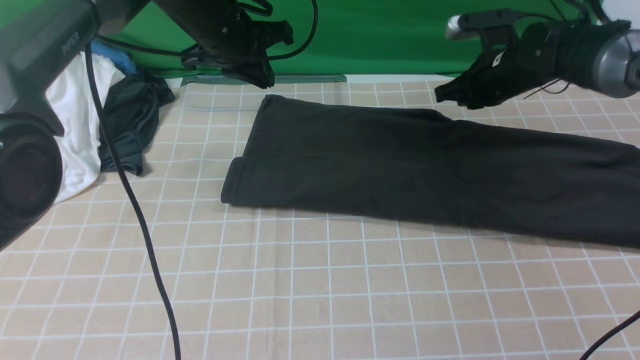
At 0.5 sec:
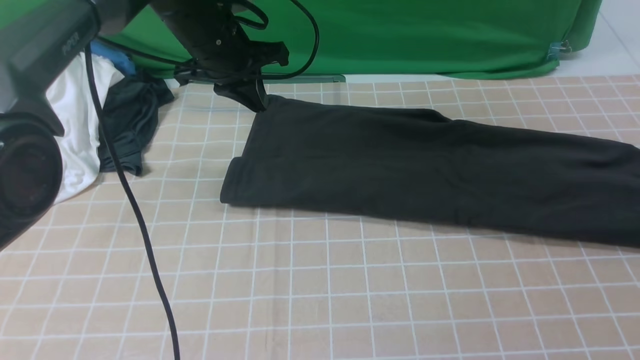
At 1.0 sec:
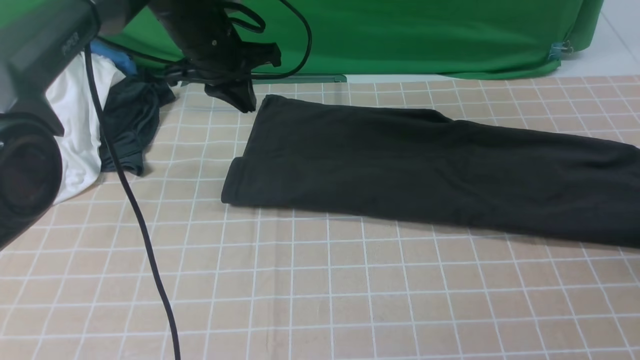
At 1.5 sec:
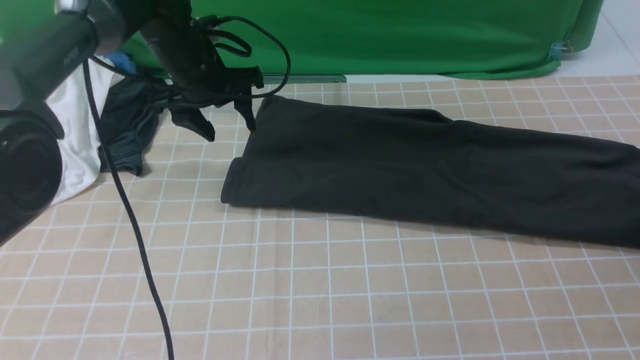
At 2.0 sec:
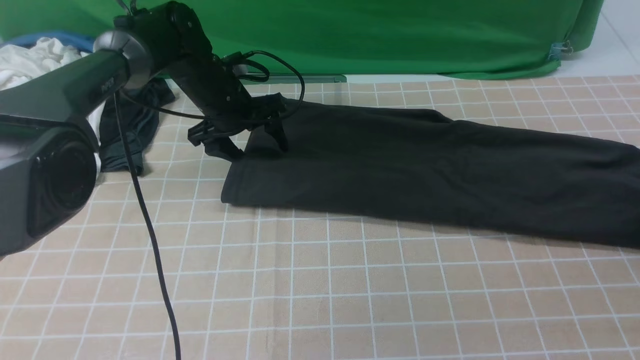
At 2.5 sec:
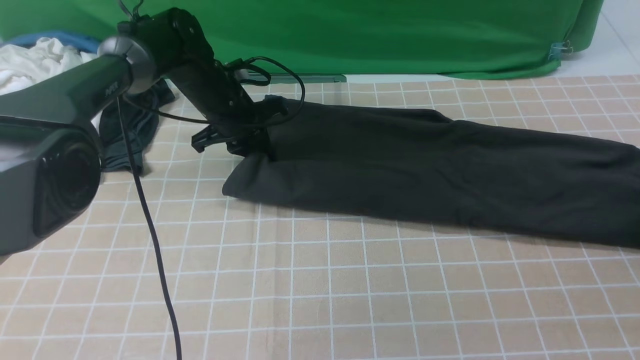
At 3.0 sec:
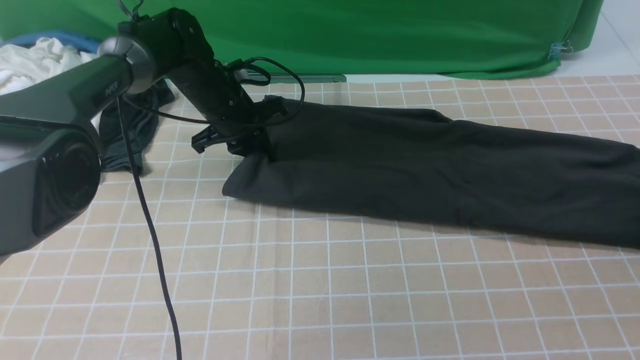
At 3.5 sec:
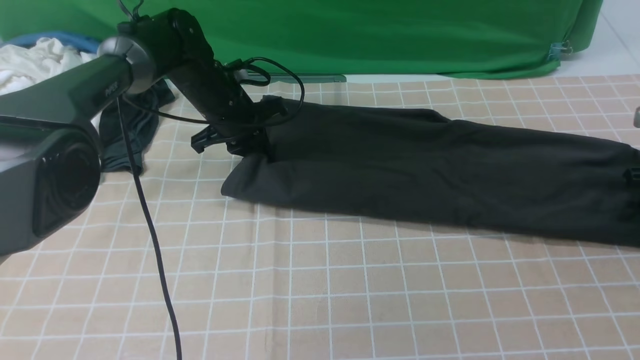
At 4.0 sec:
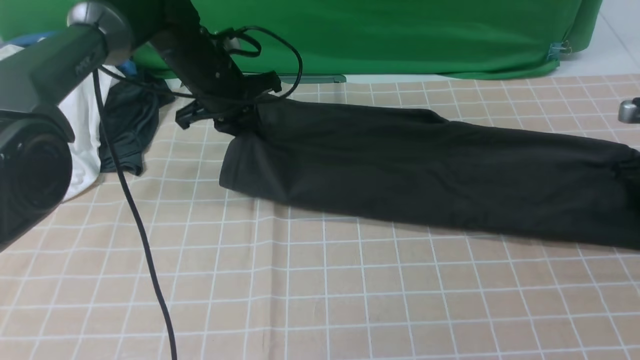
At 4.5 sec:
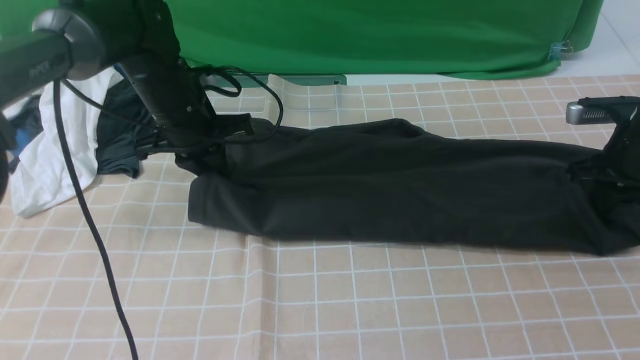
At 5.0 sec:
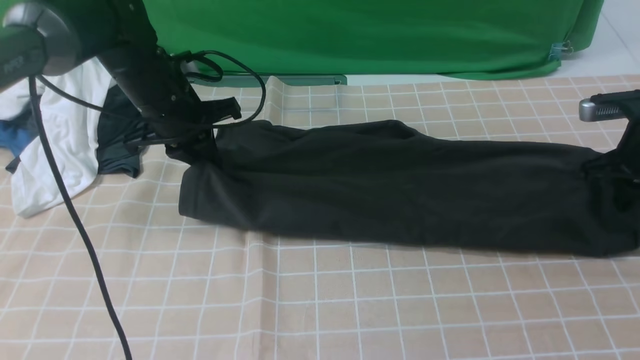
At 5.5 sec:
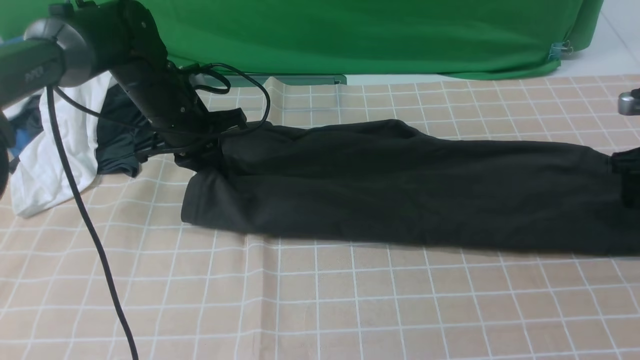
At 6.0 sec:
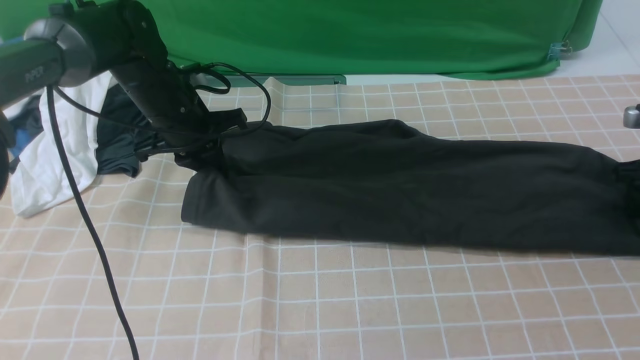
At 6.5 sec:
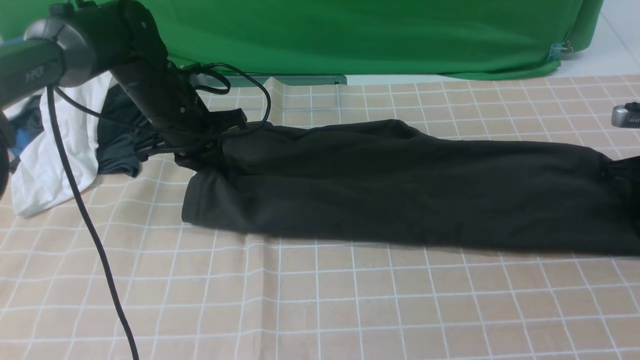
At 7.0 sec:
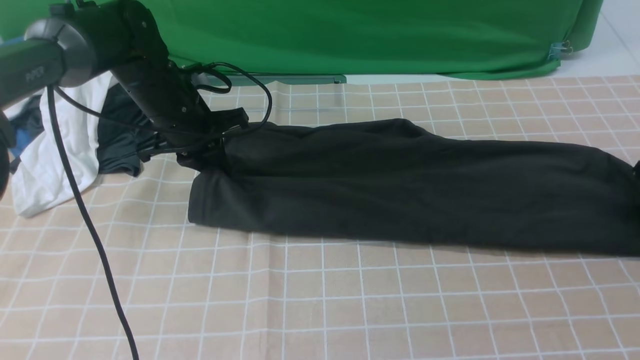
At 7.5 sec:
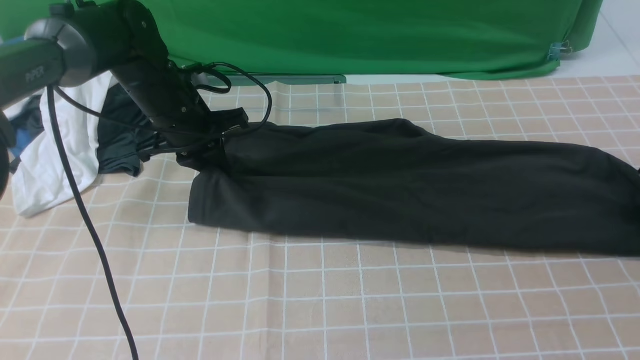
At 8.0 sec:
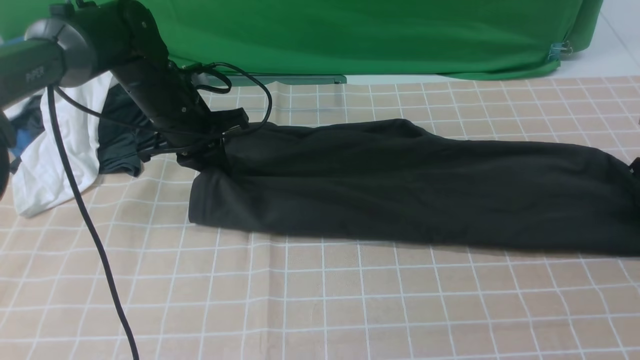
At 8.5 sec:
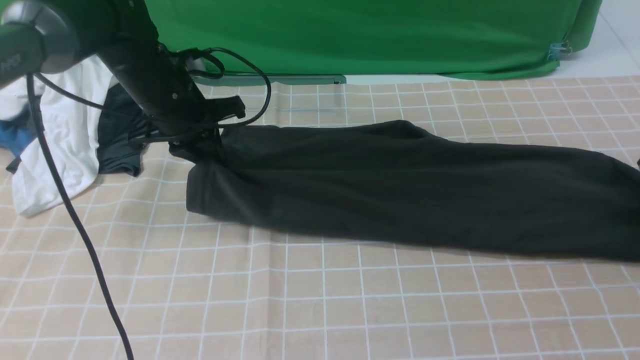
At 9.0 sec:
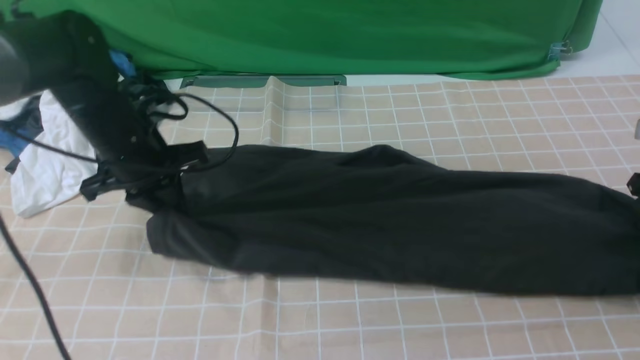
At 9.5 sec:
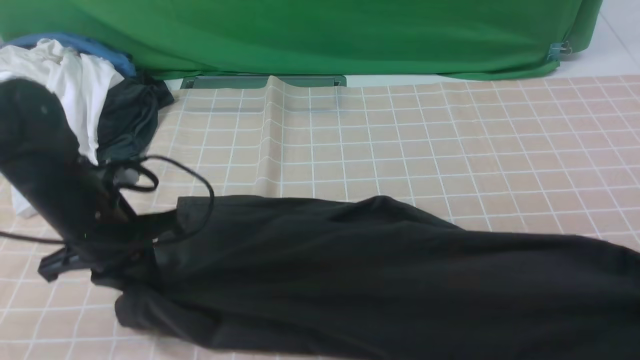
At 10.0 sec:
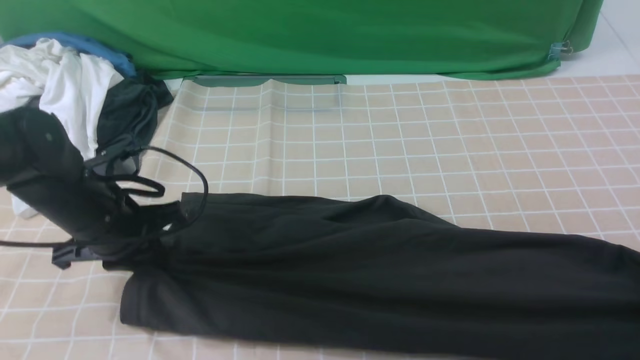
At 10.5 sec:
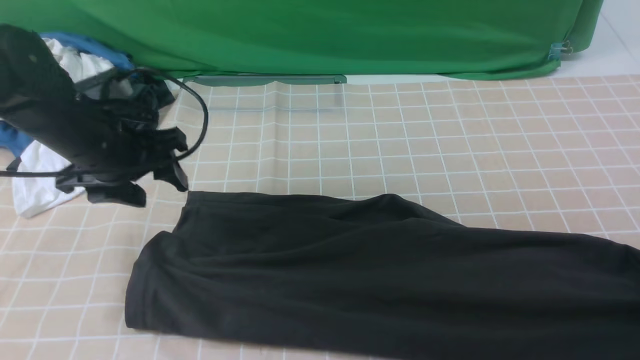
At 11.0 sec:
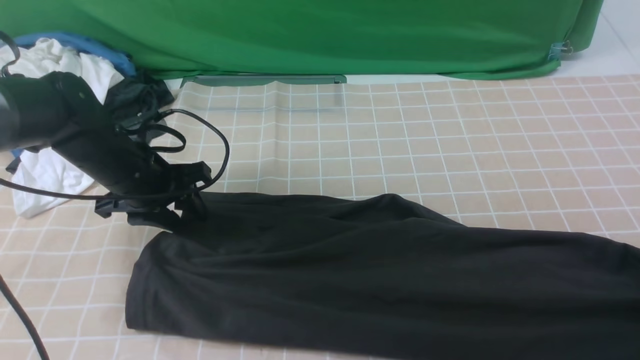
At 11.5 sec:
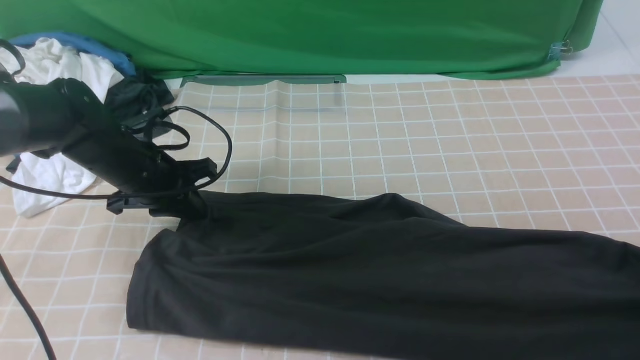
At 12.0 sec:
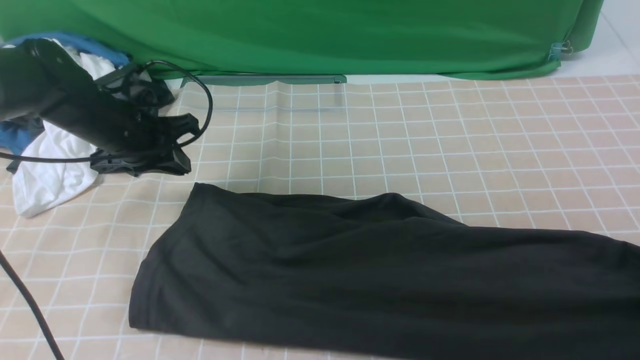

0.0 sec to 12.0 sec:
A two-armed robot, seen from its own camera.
0.0 sec to 2.0 sec: The left gripper moves downward, some 10 cm, and opens up. The right gripper travels to the right and backward by roughly 25 cm, and opens.
2.0 sec to 4.0 sec: The right gripper is displaced to the left by approximately 5 cm, and closes up. Meanwhile the left gripper closes.
4.0 sec to 6.0 sec: The right gripper opens its fingers.
6.0 sec to 8.0 sec: The right gripper closes.
8.0 sec to 10.0 sec: The left gripper moves backward, some 15 cm, while the right gripper moves backward and to the left, about 15 cm.
10.0 sec to 12.0 sec: The left gripper travels forward by about 10 cm, and opens and closes again.

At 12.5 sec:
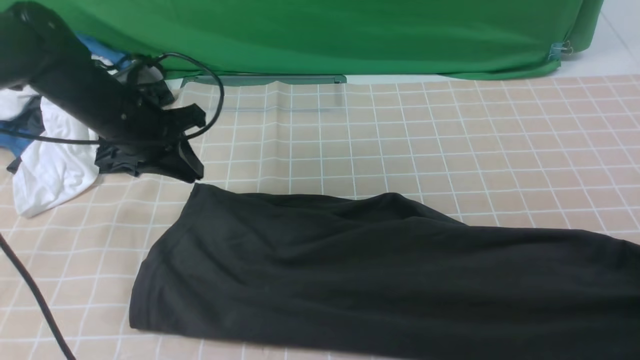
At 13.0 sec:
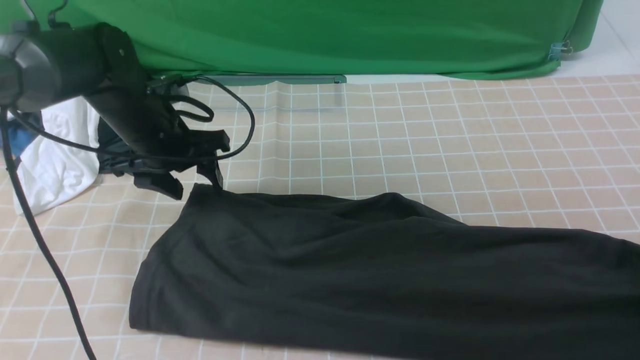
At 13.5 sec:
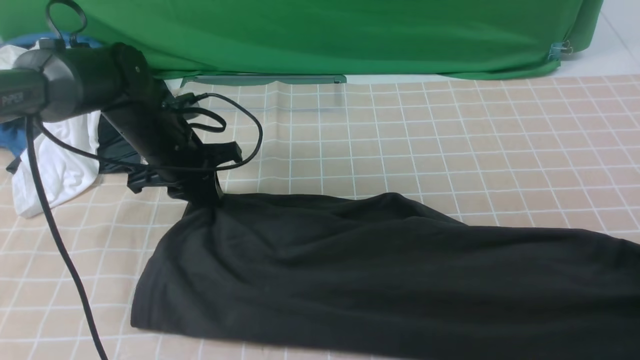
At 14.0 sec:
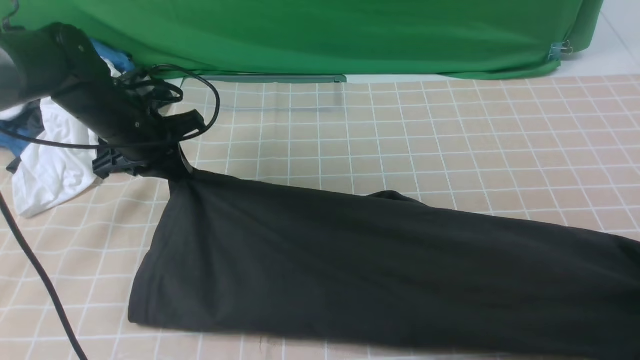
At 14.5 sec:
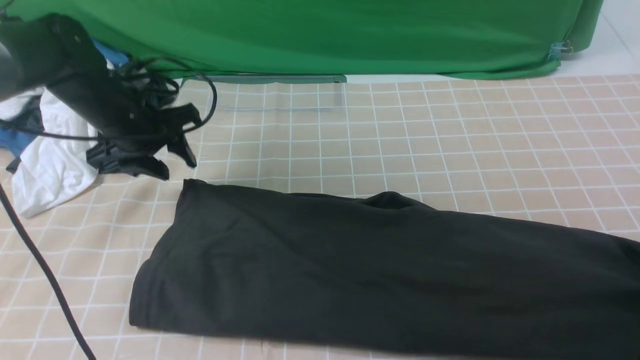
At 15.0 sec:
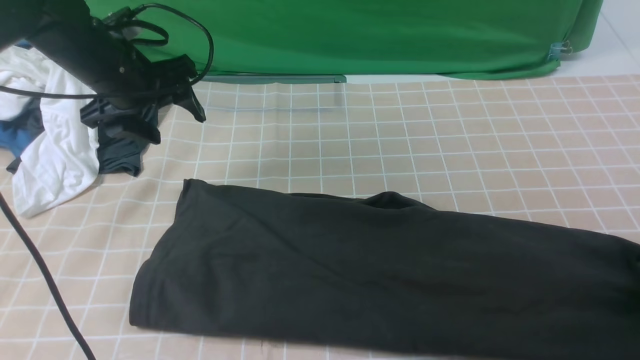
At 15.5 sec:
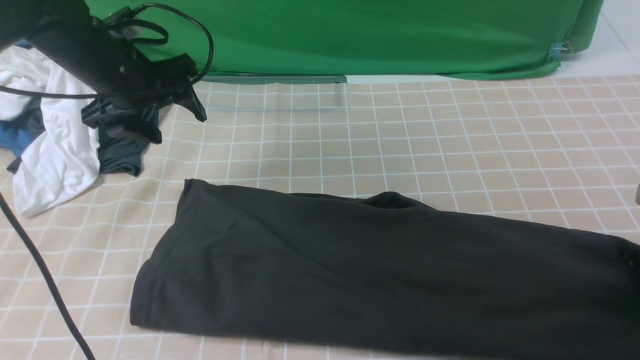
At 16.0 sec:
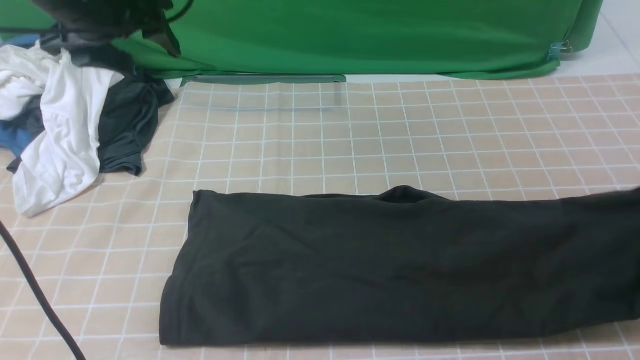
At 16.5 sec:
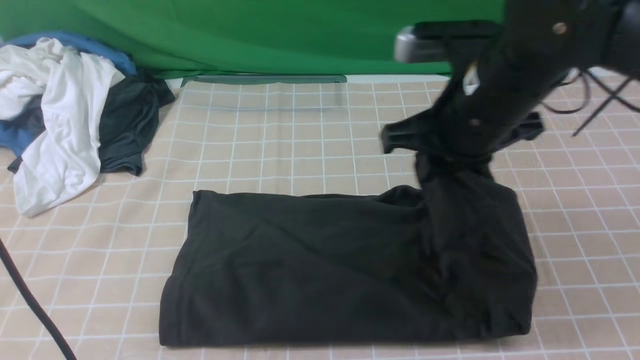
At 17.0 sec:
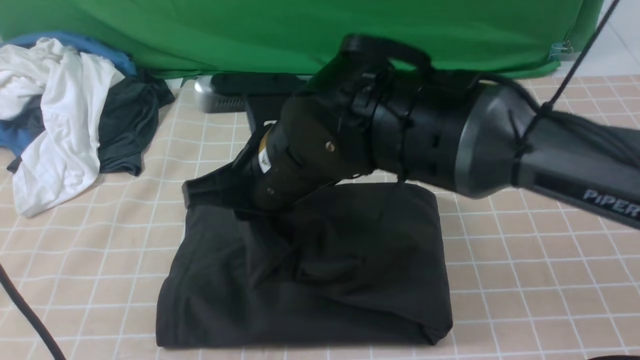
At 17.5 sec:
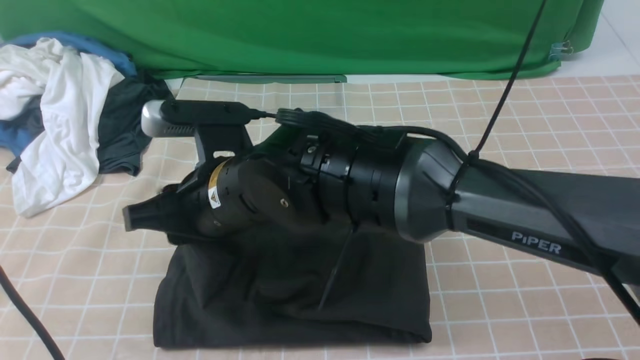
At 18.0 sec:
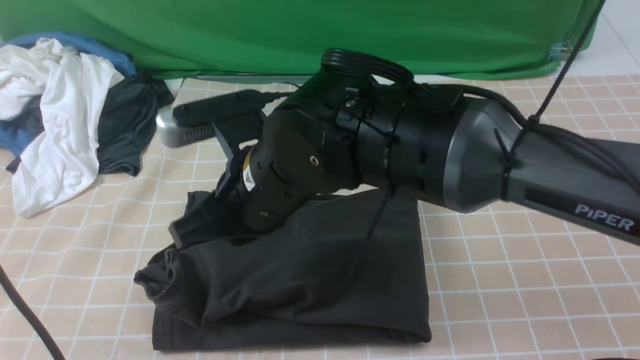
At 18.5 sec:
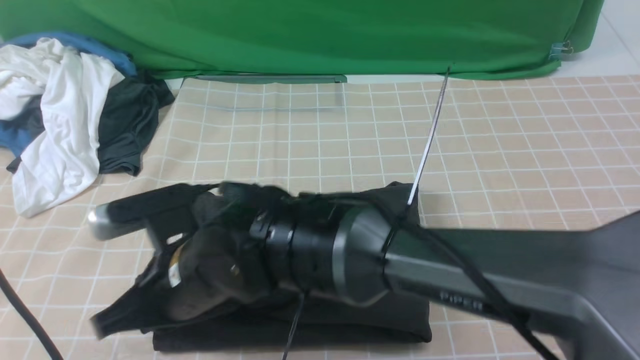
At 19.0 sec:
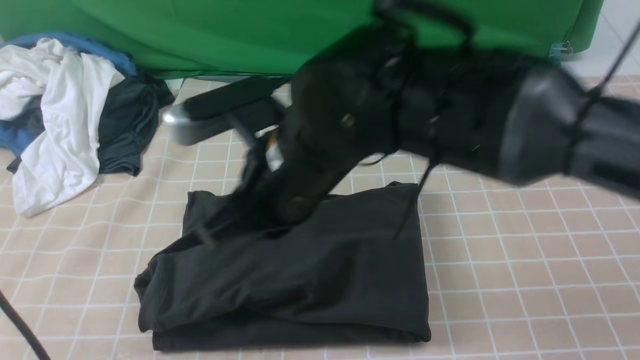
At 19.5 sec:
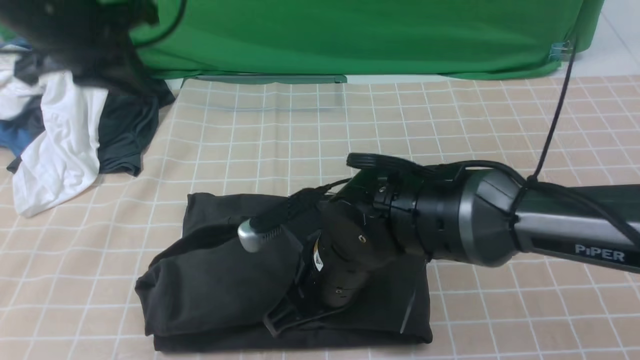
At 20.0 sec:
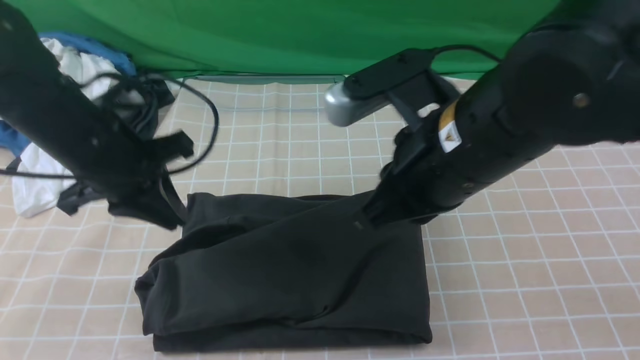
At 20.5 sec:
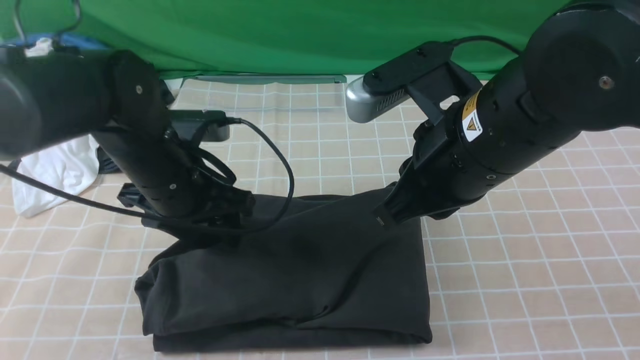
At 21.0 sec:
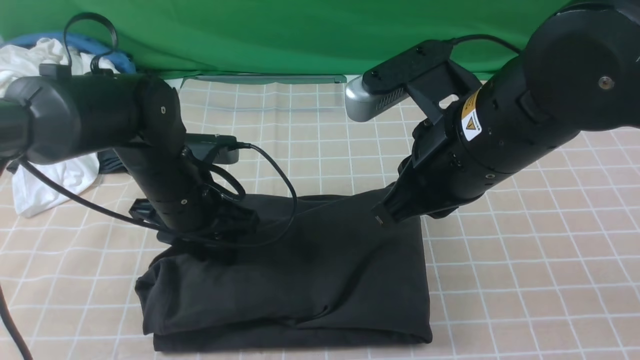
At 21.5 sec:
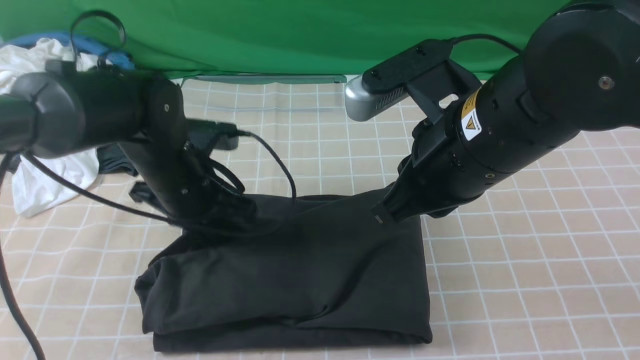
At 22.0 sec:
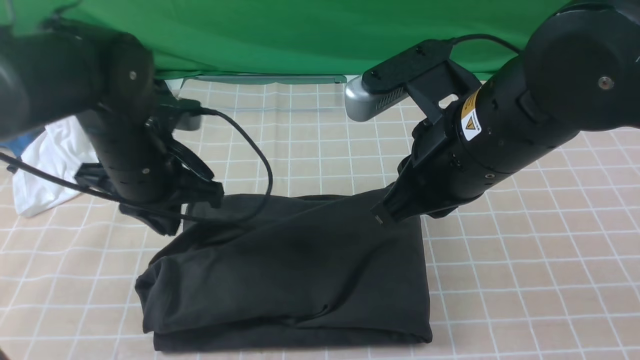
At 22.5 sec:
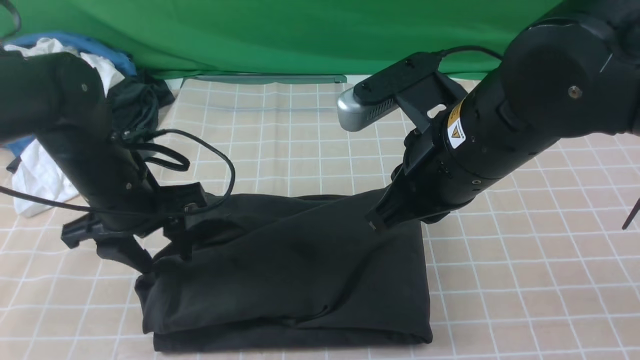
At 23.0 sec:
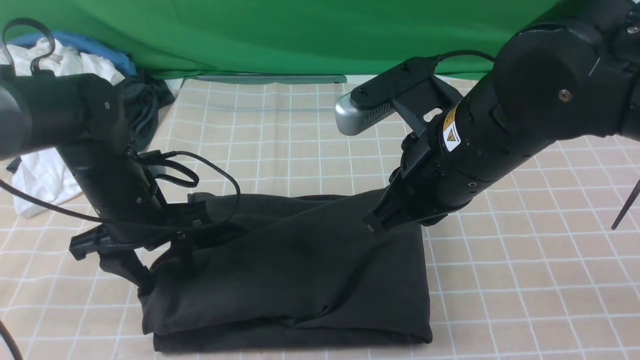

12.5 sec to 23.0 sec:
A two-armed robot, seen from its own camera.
Step, 12.5 sec to 16.0 sec: use the right arm to clamp the right edge of the fabric.
Step, 16.5 sec to 18.0 sec: use the right arm to drag the right edge of the fabric to the left and folds it over the left edge.
12.5 sec to 14.5 sec: The left gripper opens its fingers.
14.5 sec to 16.5 sec: The left gripper is displaced upward by roughly 20 cm, and closes its fingers. Meanwhile the right gripper travels to the left and upward by roughly 30 cm, and opens, then closes again.
16.5 sec to 19.0 sec: The right gripper goes about 15 cm to the left.
19.0 sec to 21.0 sec: The left gripper heads downward, covering some 25 cm, and opens up. Meanwhile the right gripper goes about 15 cm to the right.
21.0 sec to 23.0 sec: The left gripper heads to the left, covering approximately 5 cm, and closes and opens again.
